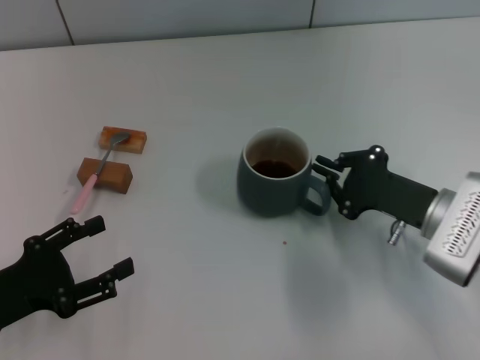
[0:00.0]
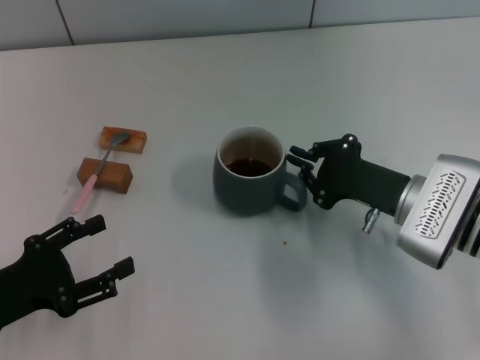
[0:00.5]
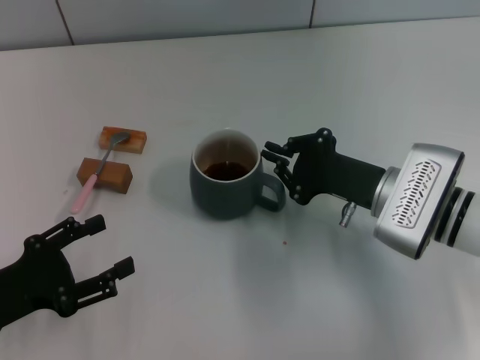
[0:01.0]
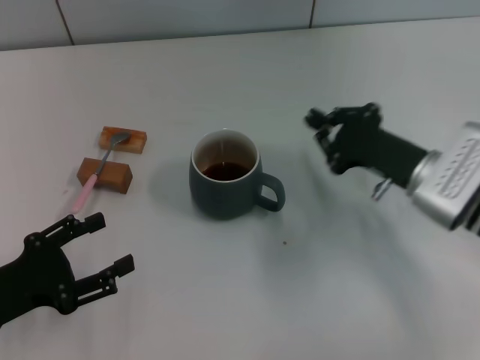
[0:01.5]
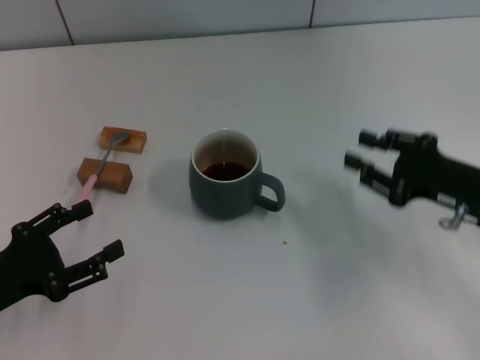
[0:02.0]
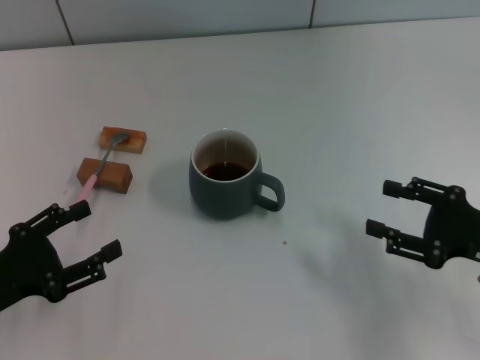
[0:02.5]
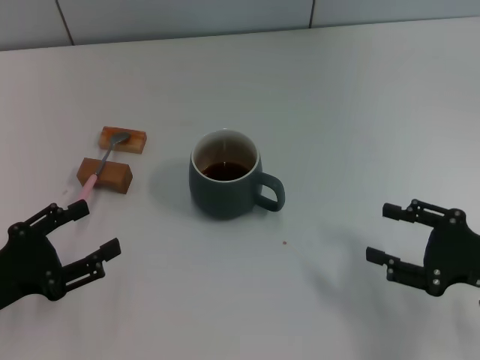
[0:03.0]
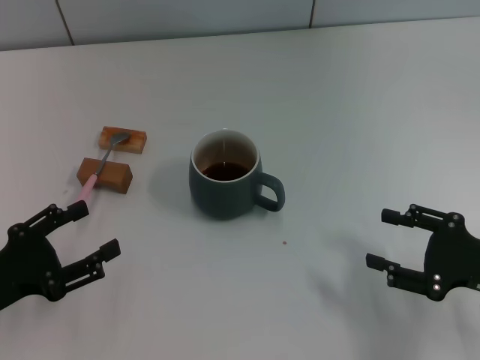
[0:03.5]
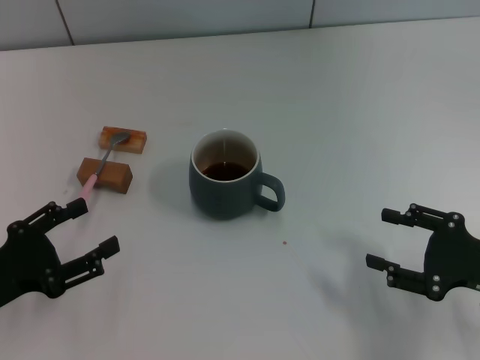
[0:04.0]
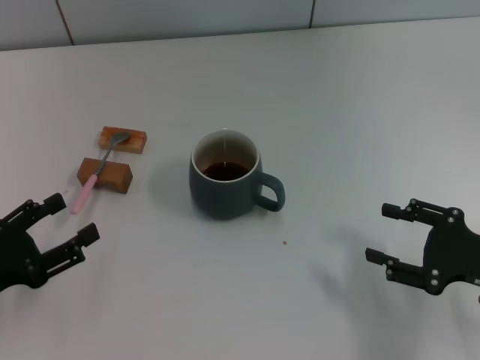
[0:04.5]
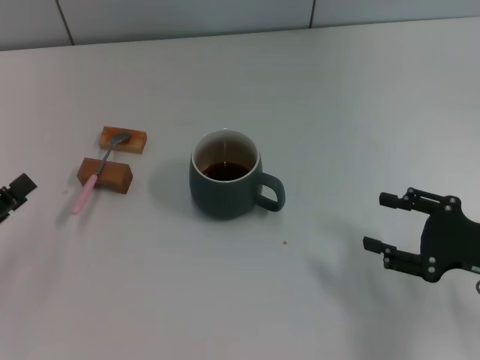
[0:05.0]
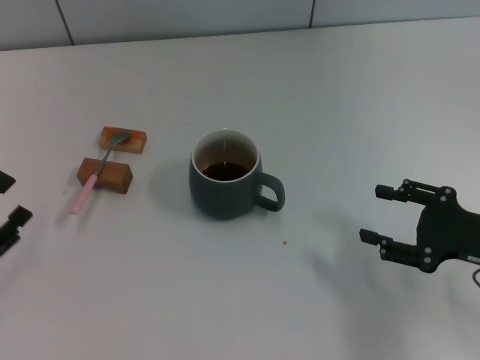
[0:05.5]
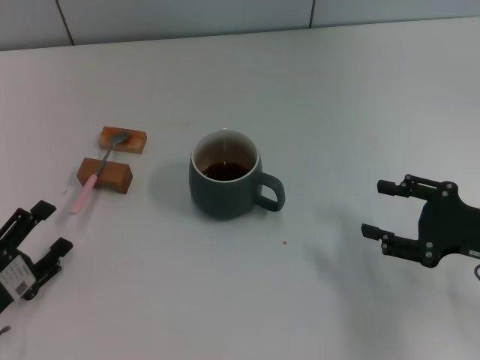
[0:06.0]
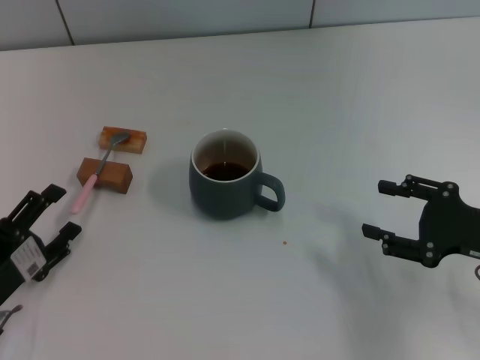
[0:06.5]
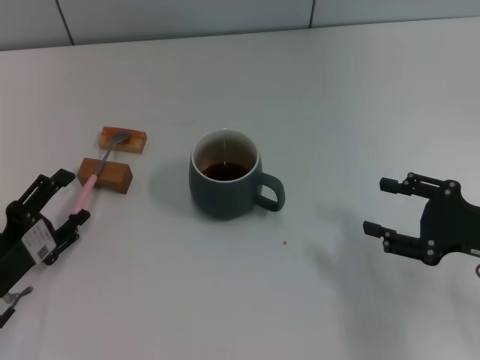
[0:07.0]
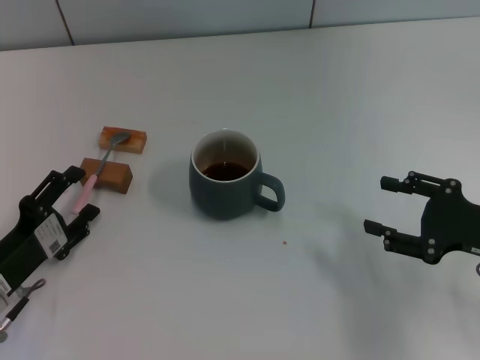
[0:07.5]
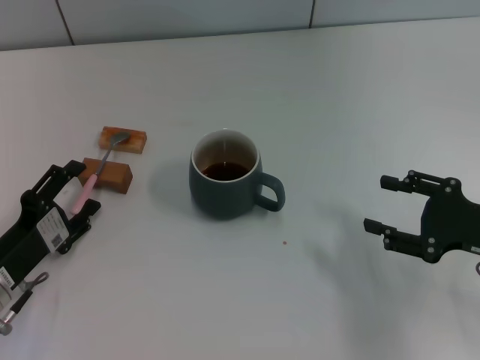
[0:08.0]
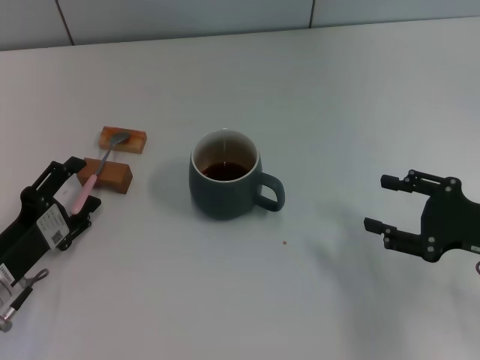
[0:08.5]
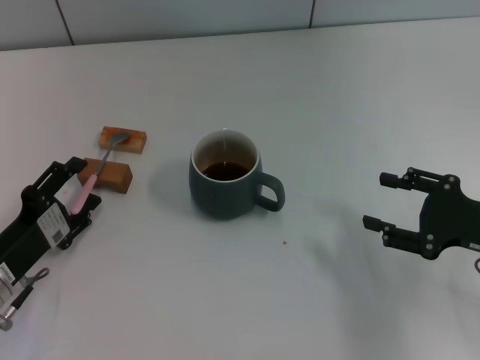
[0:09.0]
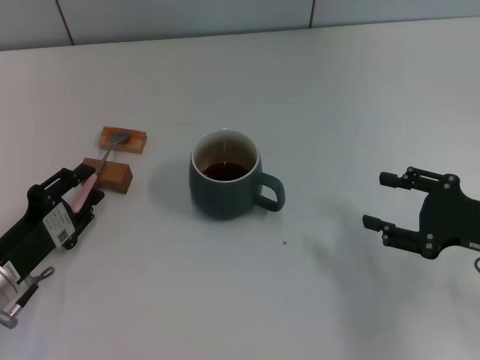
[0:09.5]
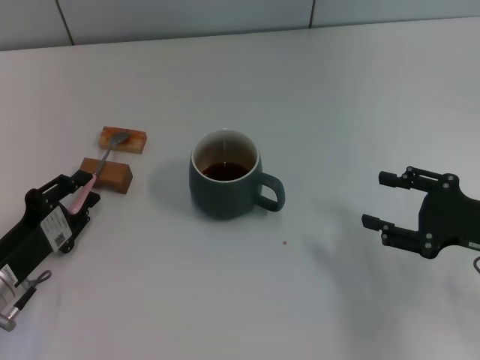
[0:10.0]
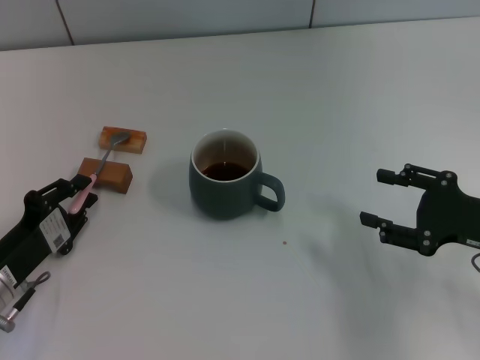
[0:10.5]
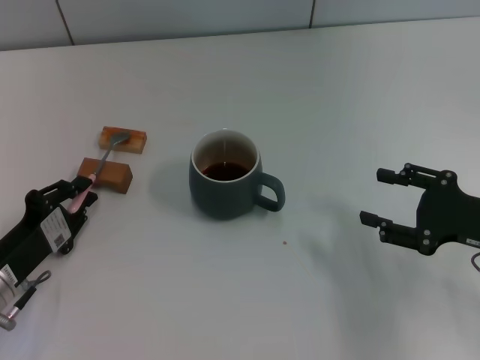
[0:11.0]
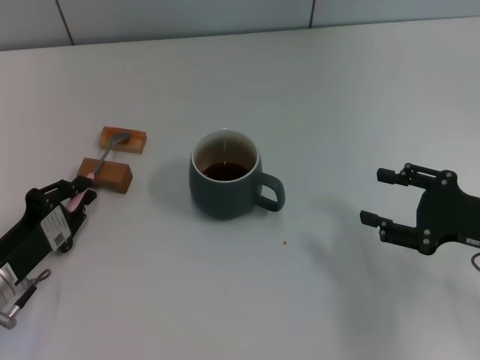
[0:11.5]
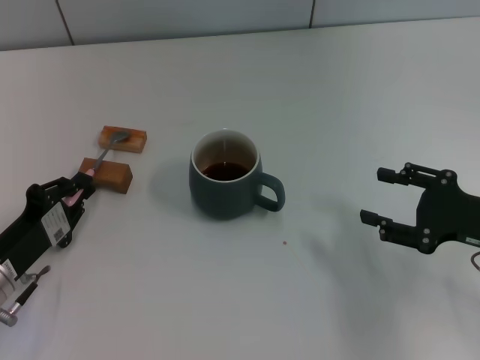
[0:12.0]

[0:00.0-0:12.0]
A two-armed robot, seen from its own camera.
Task of the whole recording: Move the grey cup to the center, lift the pink spoon, stir it three times in the cup, and put the spoon into the cup.
0:00.0 to 0:02.0: The right gripper ends up roughly 5 cm from where it was.
0:02.0 to 0:04.0: The right gripper goes approximately 5 cm backward, and opens up.
0:04.0 to 0:06.0: The left gripper ends up some 5 cm from where it was.
0:06.0 to 0:08.0: The left gripper heads forward, covering some 5 cm.
0:08.0 to 0:10.0: The left gripper closes up.
0:10.0 to 0:12.0: The left gripper closes.

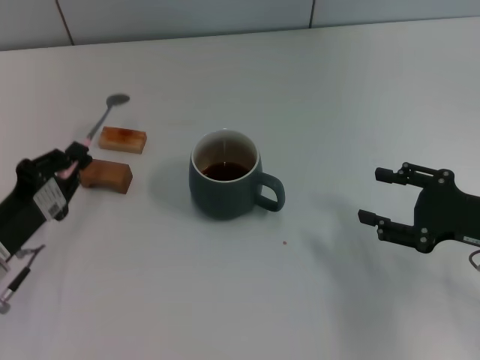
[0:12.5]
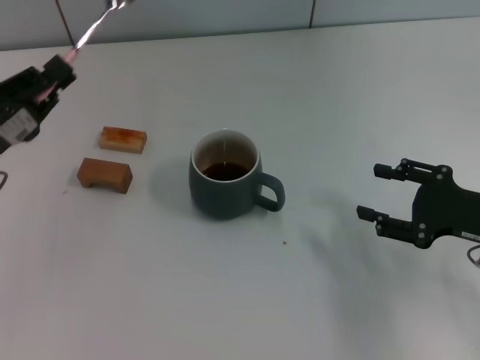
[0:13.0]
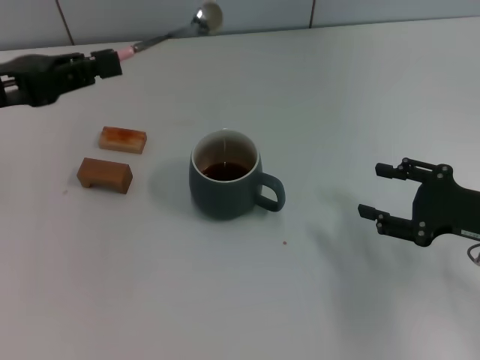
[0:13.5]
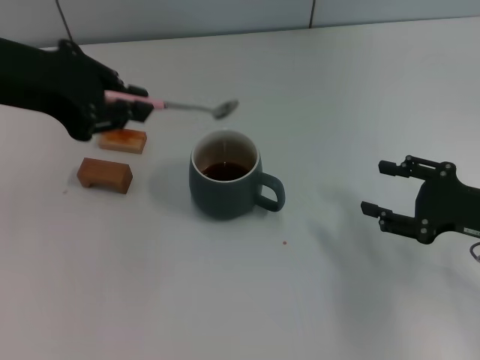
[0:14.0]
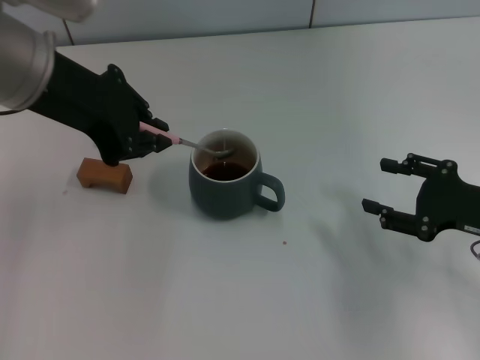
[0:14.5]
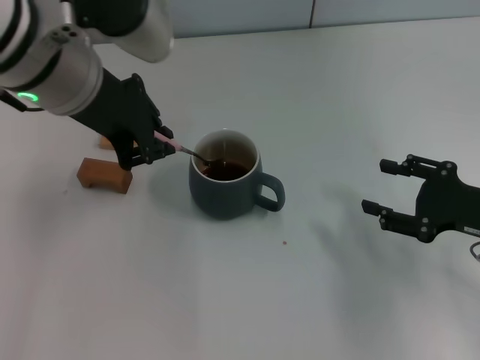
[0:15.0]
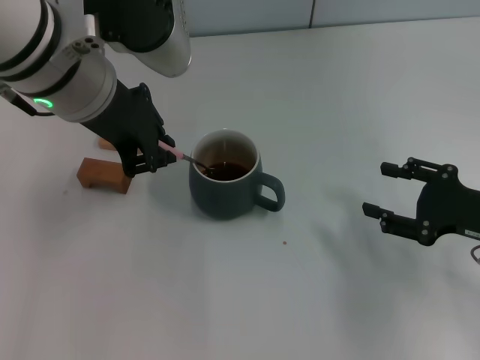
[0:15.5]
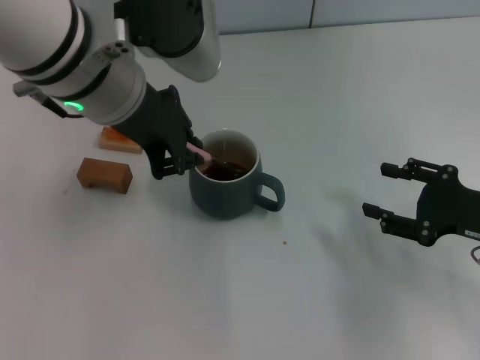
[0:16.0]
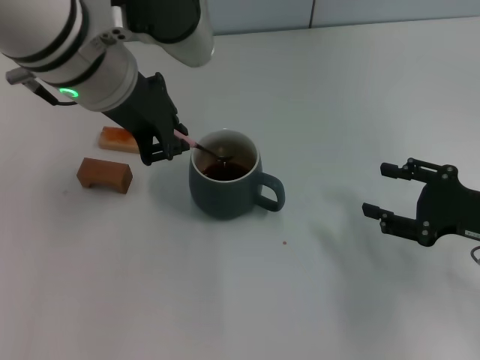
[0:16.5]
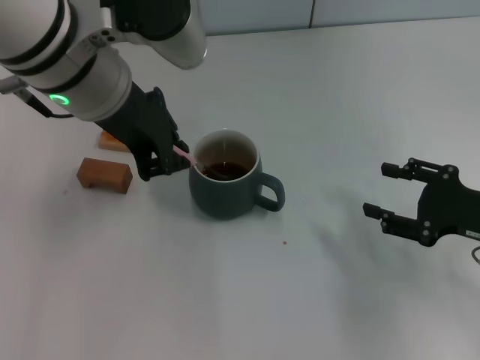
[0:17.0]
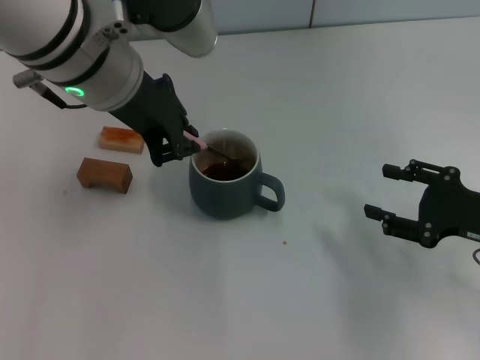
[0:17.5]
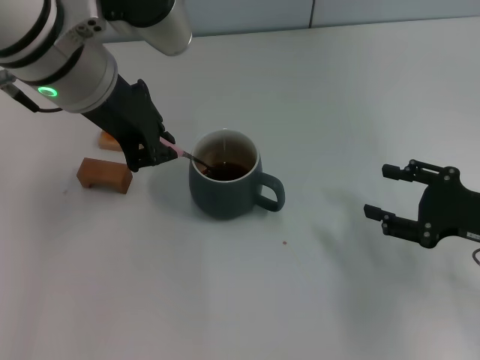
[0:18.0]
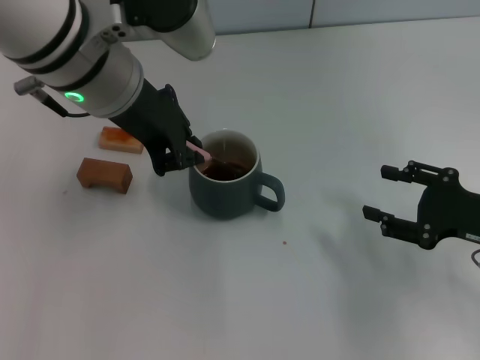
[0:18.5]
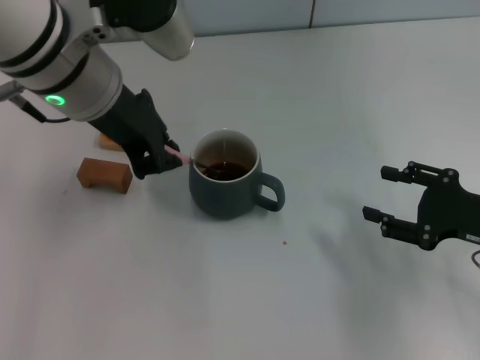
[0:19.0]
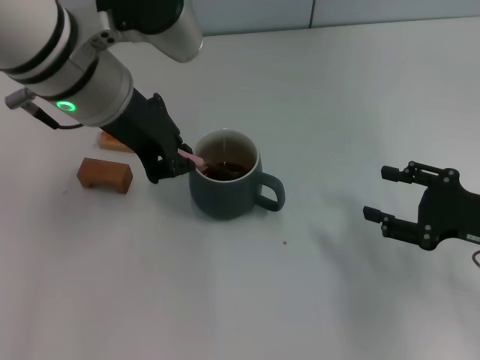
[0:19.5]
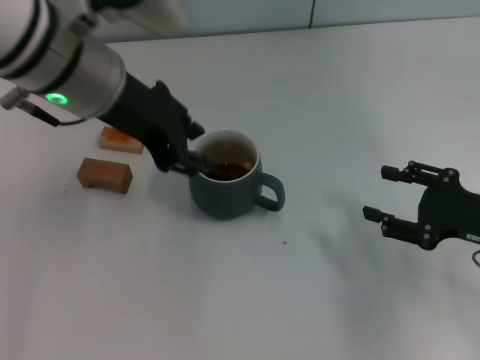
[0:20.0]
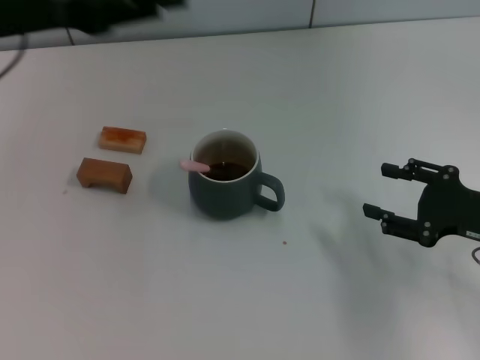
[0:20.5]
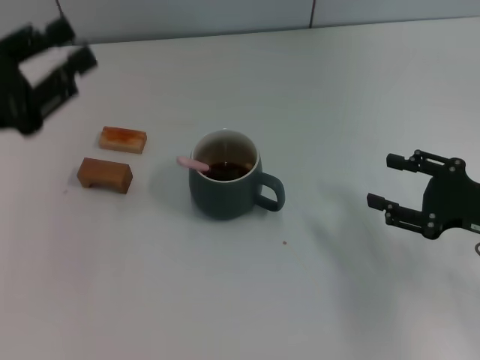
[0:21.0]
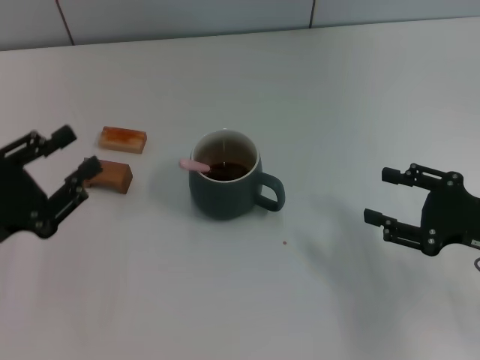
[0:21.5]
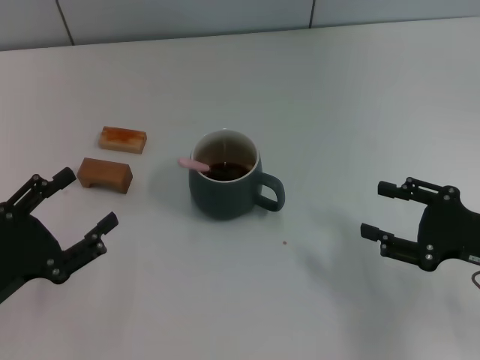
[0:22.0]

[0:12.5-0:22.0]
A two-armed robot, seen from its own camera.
Task of the whole recording: Move the grey cup to the center, lift the pink spoon, stir it three times in the cup, and put the spoon into the cup.
Step, 0:12.5 to 0:20.0: Stir the coffee in the cup with the left gripper.
0:12.5 to 0:14.5: The left gripper goes roughly 25 cm upward and to the right.
0:14.5 to 0:16.5: The left gripper shifts some 5 cm to the right.
0:16.5 to 0:20.0: The grippers move only a little.
0:20.0 to 0:22.0: The left gripper is displaced downward, backward and to the left by about 30 cm, and opens its fingers.

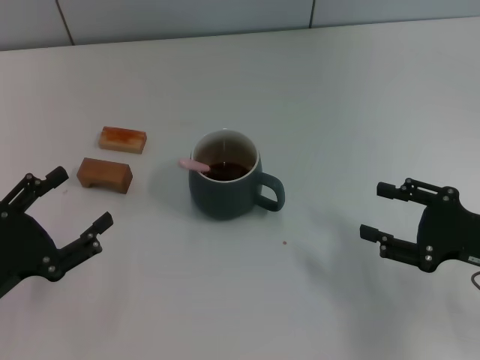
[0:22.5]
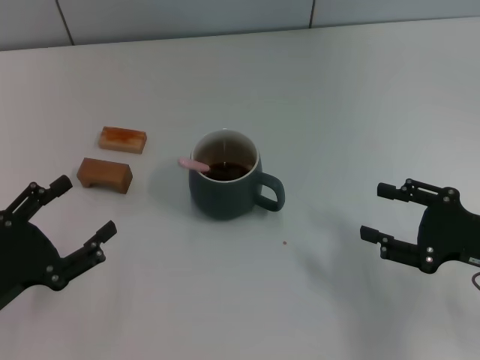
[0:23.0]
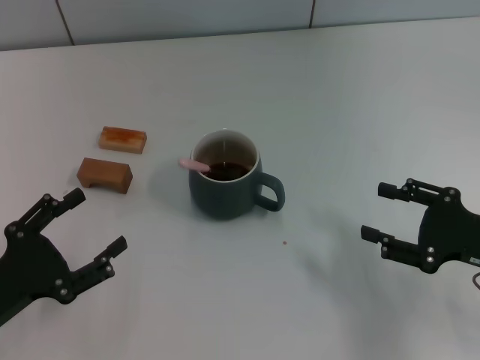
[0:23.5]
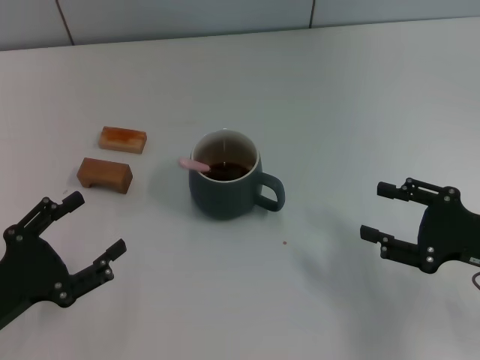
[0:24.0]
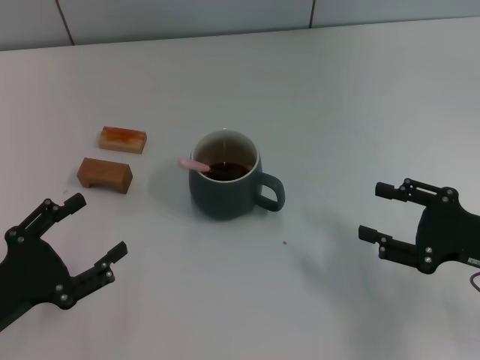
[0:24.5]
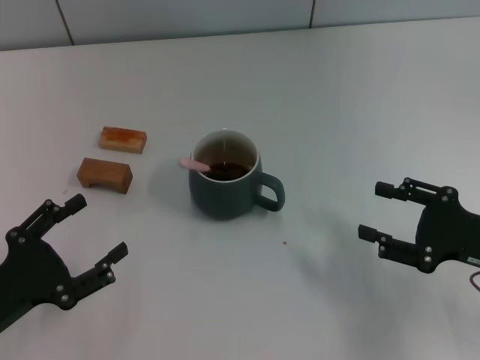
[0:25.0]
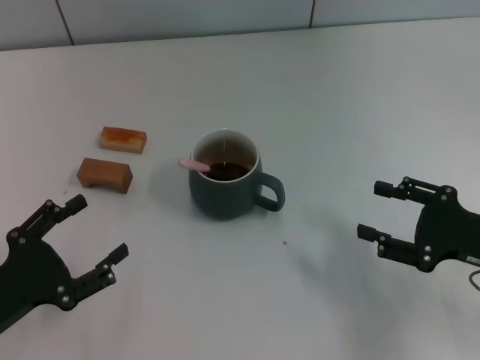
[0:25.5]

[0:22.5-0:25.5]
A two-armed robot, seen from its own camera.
Task of the whole recording: Move the grey cup to the center, lift the pink spoon, stir it three times in the cup, and put the spoon into the cup.
0:22.5 to 0:24.0: There are only small adjustments of the grippers.
0:24.0 to 0:25.5: Both grippers stay put.
